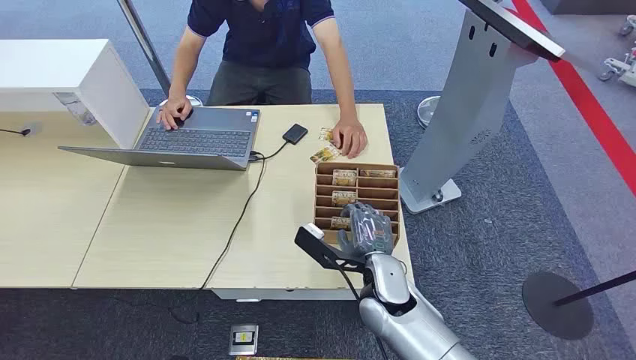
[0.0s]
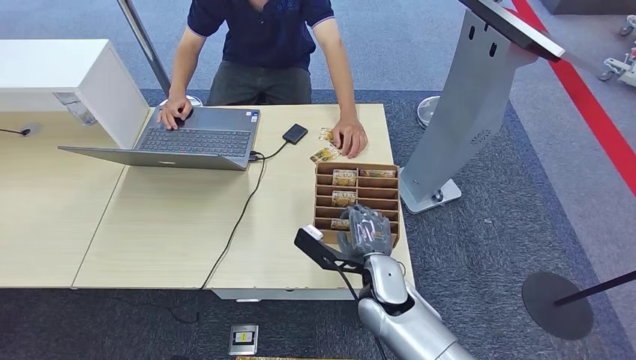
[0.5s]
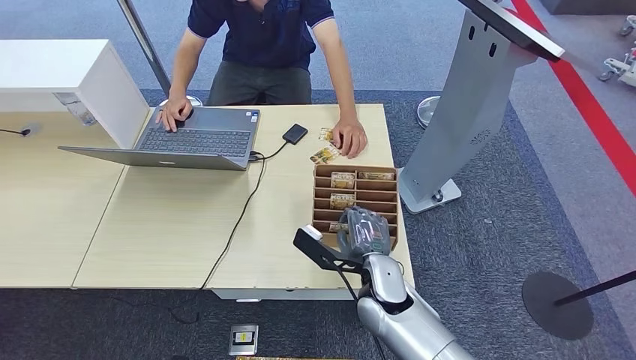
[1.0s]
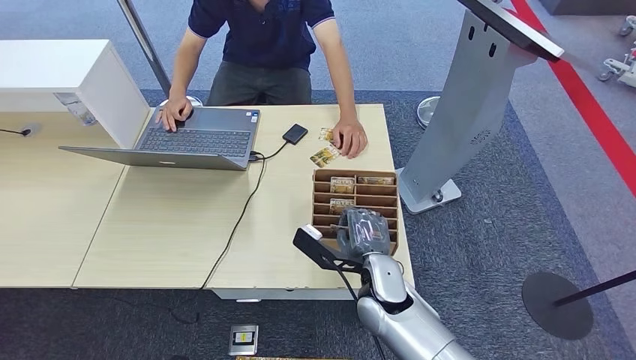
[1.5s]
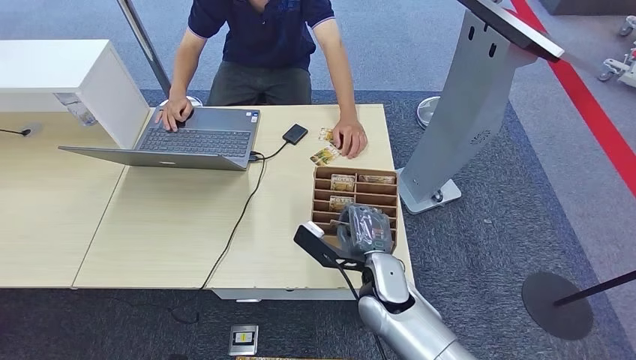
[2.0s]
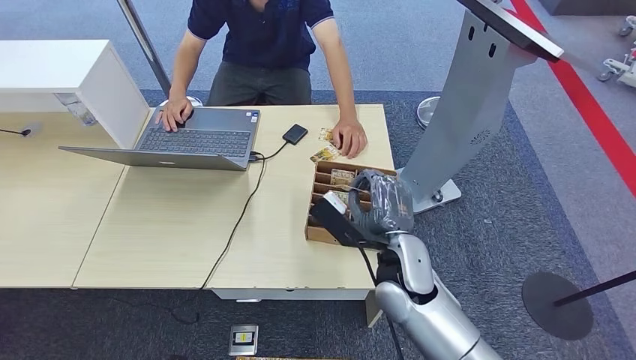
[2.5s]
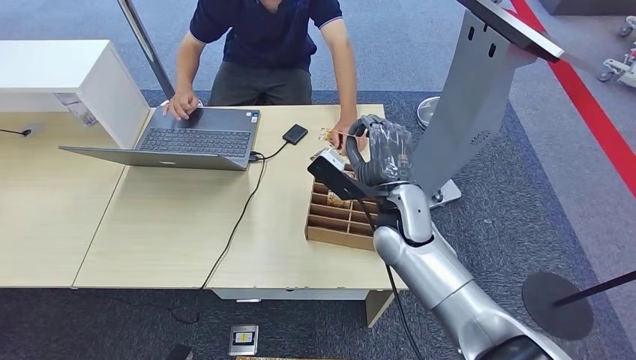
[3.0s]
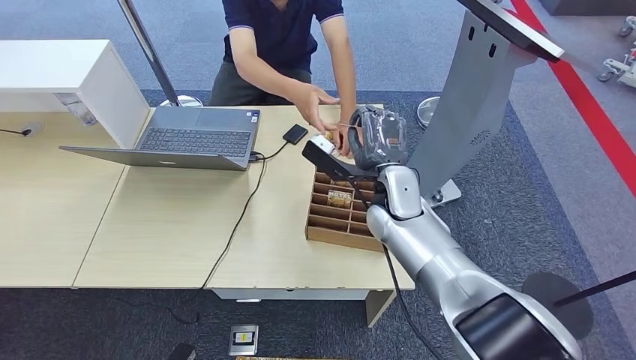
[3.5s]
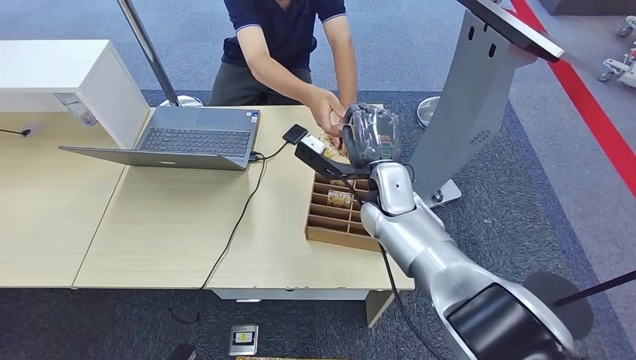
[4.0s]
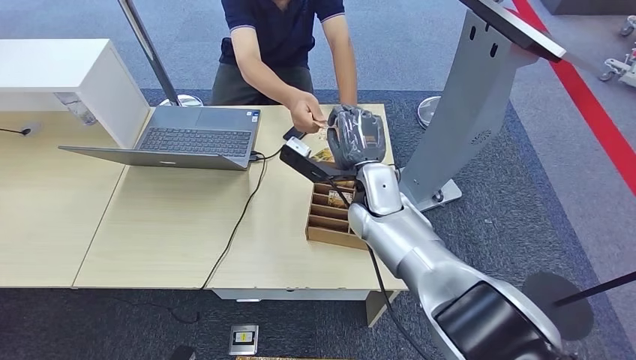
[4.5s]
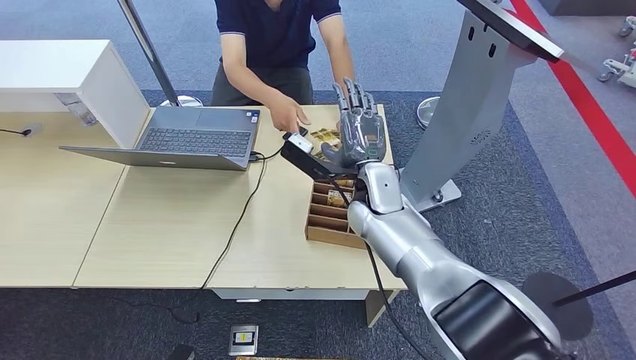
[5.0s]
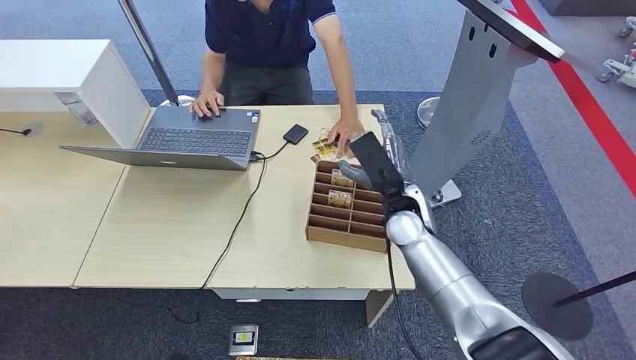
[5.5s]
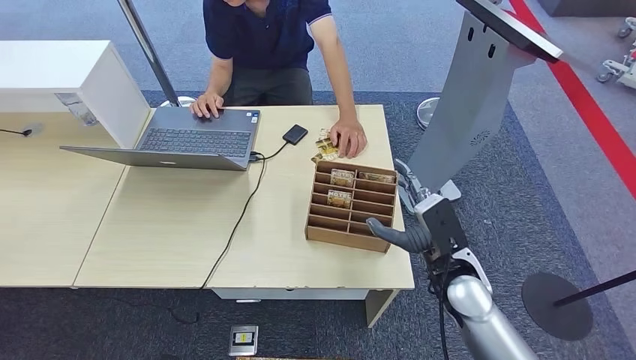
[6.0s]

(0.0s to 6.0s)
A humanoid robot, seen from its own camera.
Step, 0.0s - 2.5s: Pick up the room card from the card holder.
Step, 3.0s - 6.0s: Hand the room card to the target.
2.0s - 4.0s: The right hand goes approximately 15 cm forward and upward.
4.0s - 6.0s: The right hand is displaced backward, to the right and downward by roughly 20 cm.
